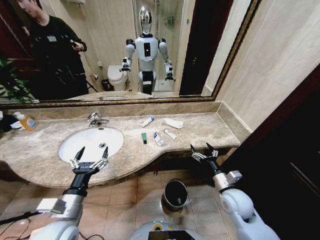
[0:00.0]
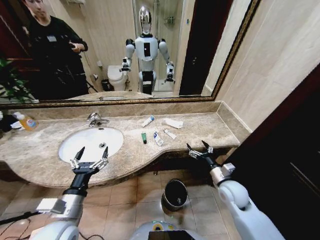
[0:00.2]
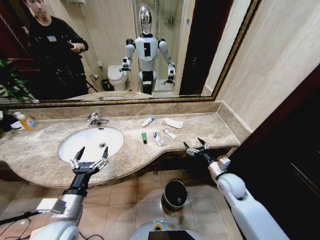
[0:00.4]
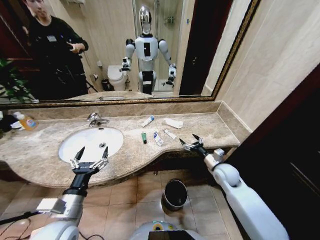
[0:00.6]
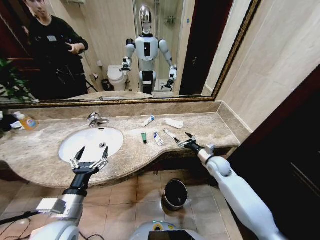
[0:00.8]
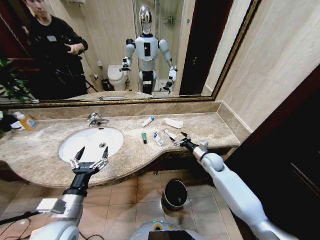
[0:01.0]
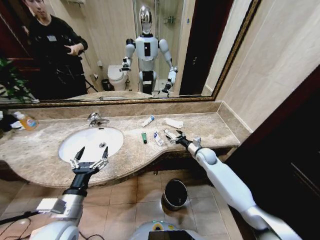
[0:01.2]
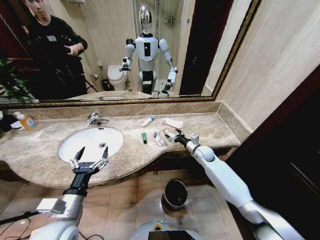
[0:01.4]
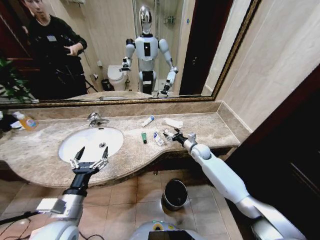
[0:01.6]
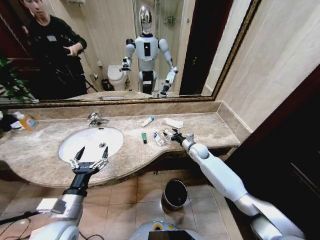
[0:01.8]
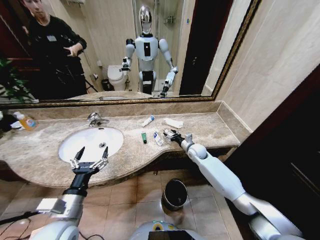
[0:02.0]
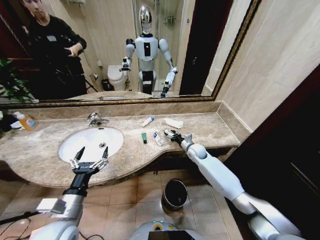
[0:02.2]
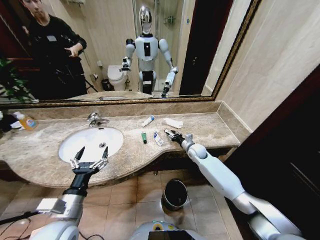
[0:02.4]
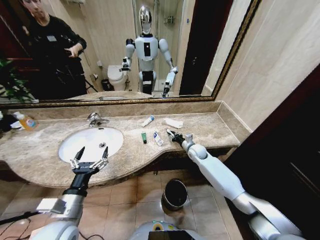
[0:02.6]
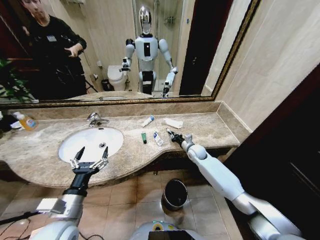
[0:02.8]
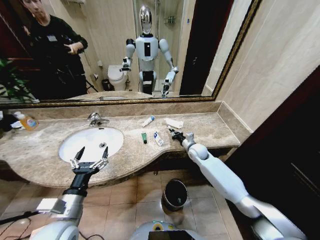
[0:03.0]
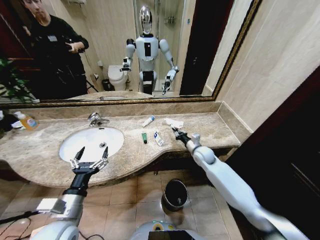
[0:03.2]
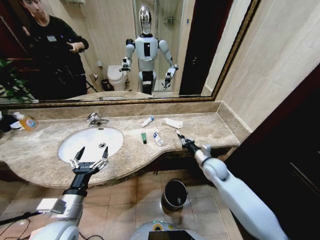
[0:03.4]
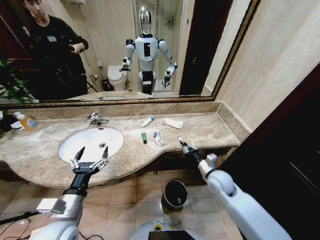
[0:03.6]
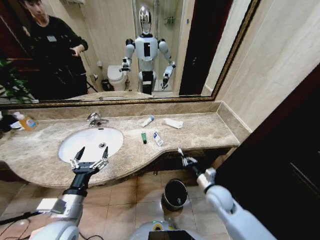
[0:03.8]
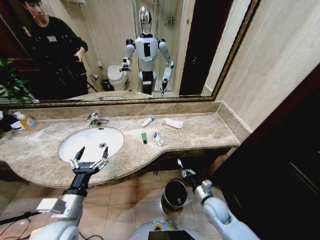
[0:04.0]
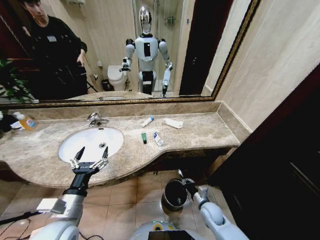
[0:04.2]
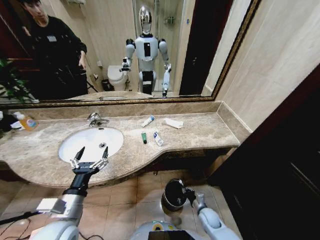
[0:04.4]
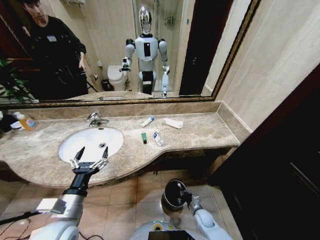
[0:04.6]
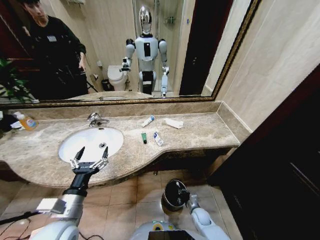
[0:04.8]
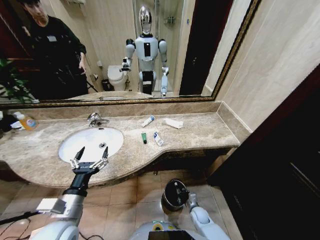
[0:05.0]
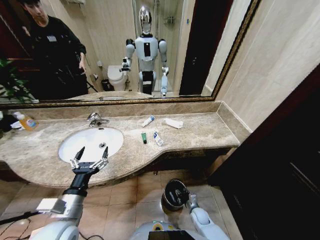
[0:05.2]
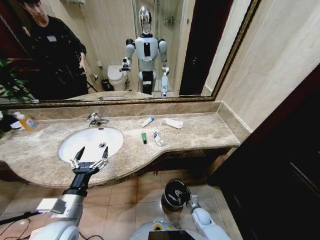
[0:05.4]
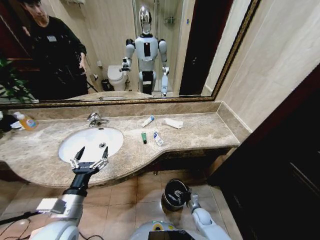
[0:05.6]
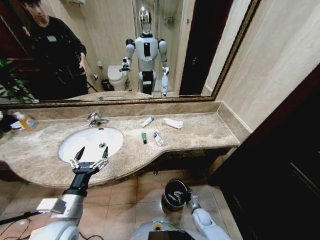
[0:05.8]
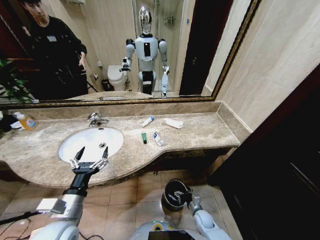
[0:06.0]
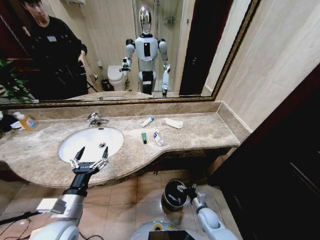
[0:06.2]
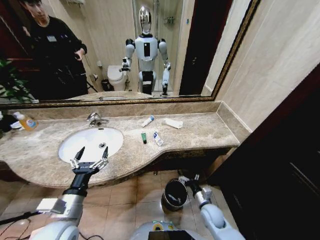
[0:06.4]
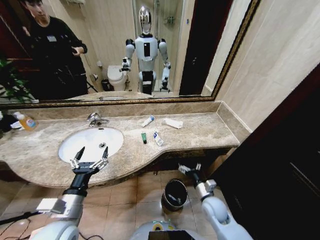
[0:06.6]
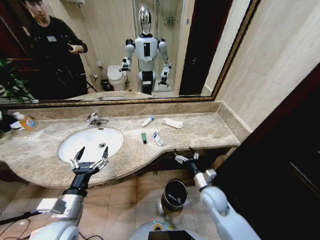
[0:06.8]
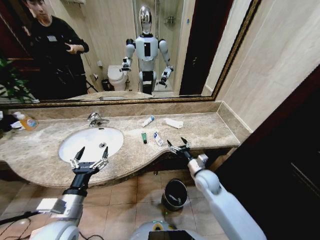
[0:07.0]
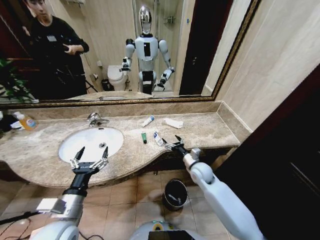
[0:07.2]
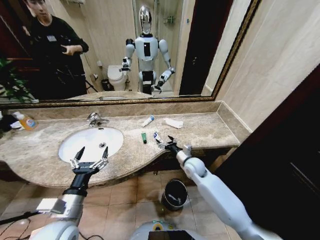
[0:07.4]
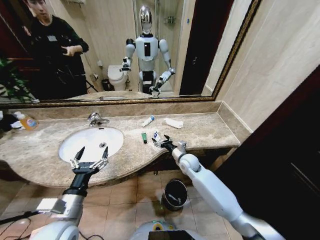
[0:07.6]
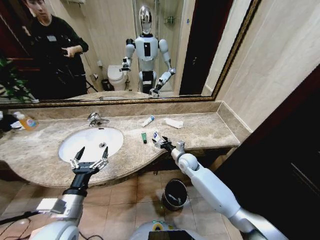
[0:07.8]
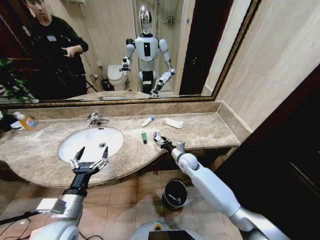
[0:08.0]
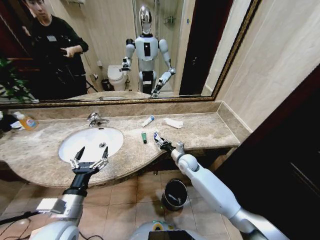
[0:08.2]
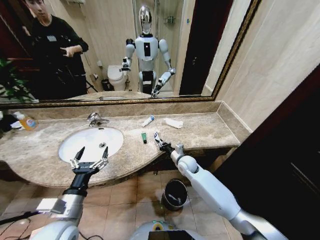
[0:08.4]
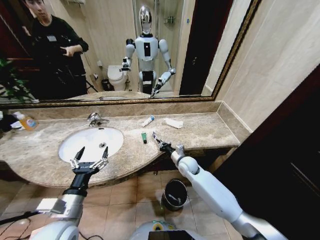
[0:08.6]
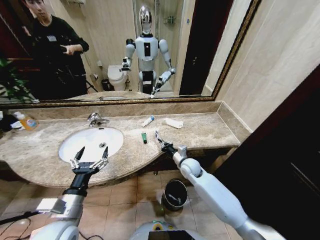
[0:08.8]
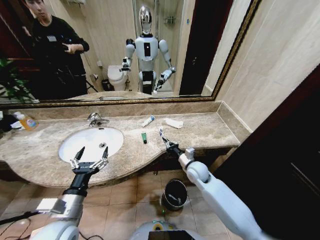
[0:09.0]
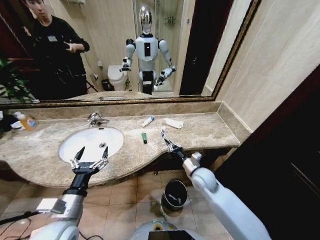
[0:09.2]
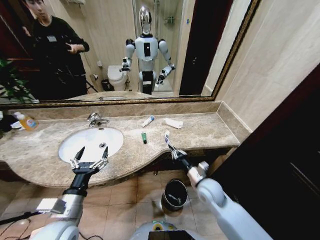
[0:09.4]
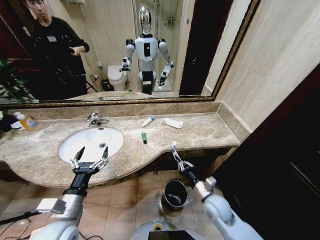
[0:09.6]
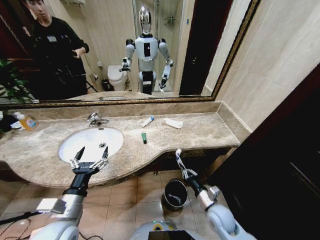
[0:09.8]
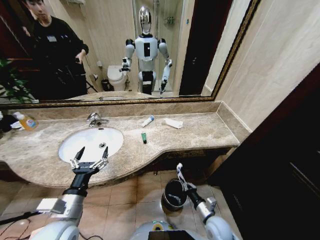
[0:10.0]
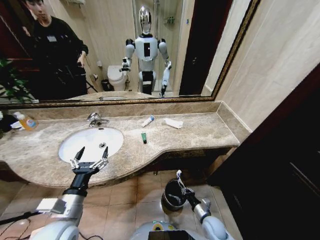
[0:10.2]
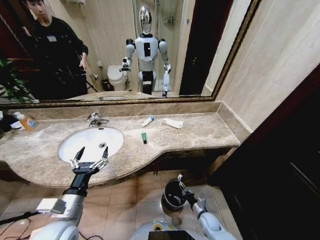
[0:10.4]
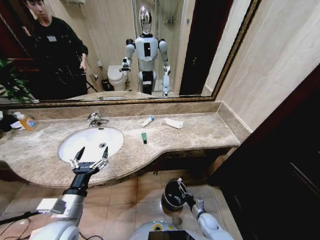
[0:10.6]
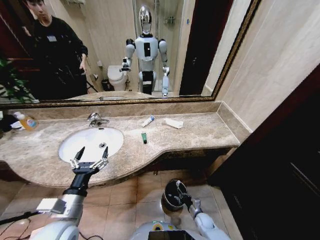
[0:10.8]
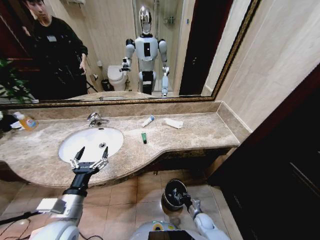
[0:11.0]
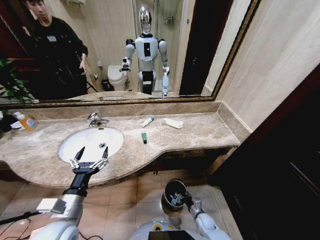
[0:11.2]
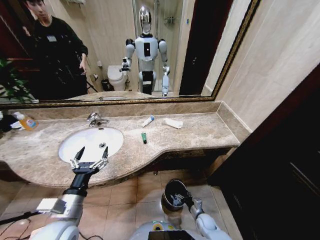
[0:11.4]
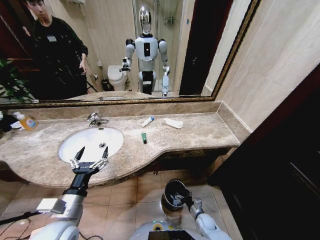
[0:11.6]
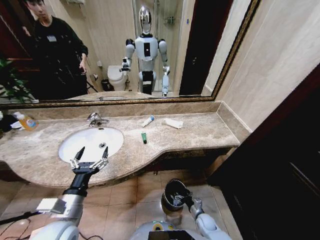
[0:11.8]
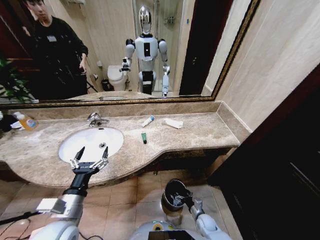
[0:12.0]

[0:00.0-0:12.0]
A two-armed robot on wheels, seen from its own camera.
Task of the whole recording: Pick up the trash from the sink and place it in the trash bin.
0:01.6 to 0:03.0: The right gripper closes.
0:03.0 to 0:04.4: The right gripper is displaced backward and downward by about 35 cm.
0:04.4 to 0:06.0: The right gripper opens its fingers.
0:06.0 to 0:07.6: The right gripper is displaced upward and forward by approximately 30 cm.
0:07.6 to 0:09.0: The right gripper shifts by approximately 5 cm, and closes up.
0:09.0 to 0:10.4: The right gripper goes approximately 30 cm downward and backward.
0:10.4 to 0:12.0: The right gripper opens.

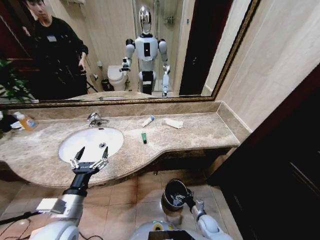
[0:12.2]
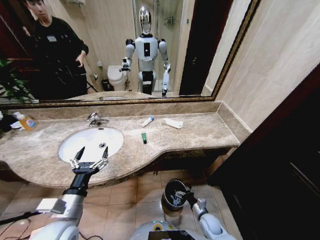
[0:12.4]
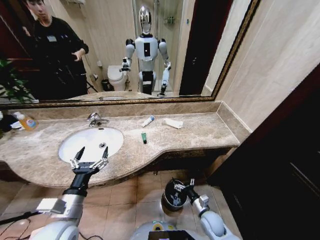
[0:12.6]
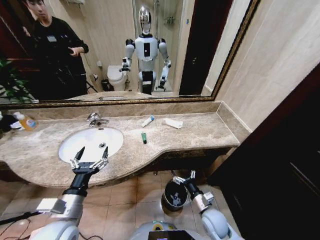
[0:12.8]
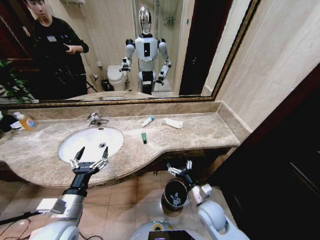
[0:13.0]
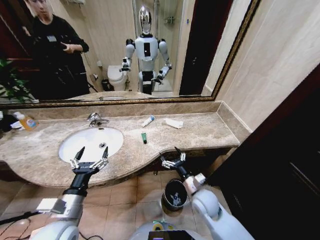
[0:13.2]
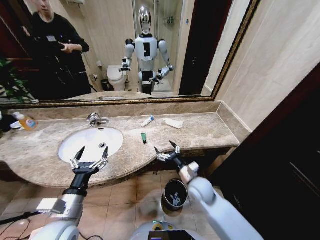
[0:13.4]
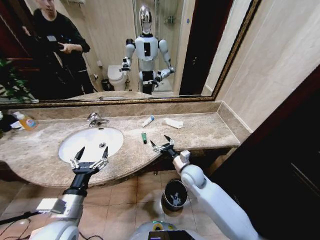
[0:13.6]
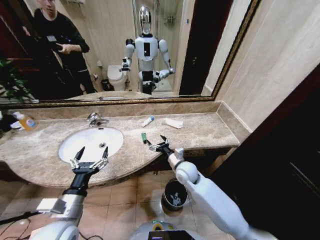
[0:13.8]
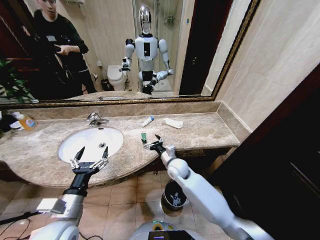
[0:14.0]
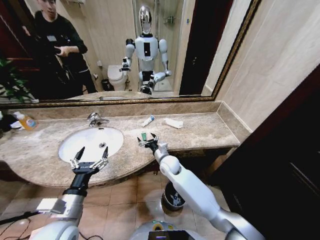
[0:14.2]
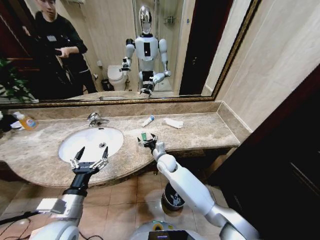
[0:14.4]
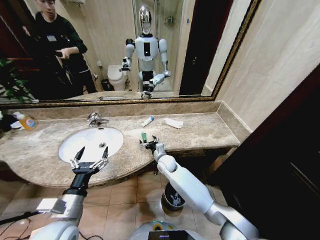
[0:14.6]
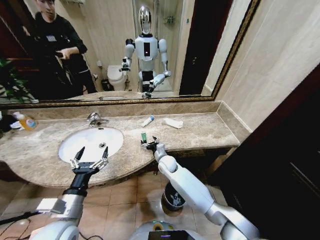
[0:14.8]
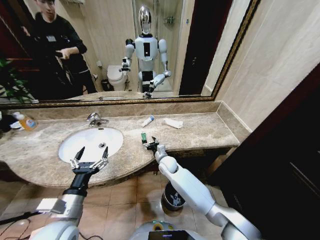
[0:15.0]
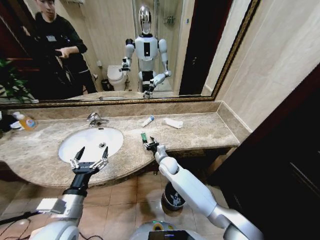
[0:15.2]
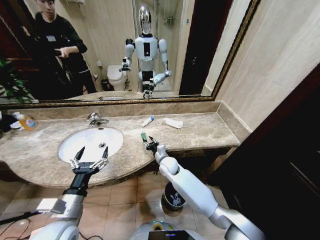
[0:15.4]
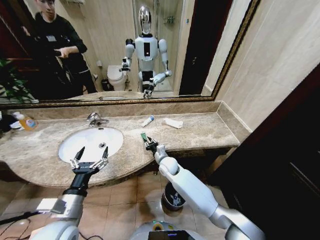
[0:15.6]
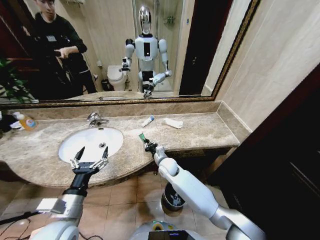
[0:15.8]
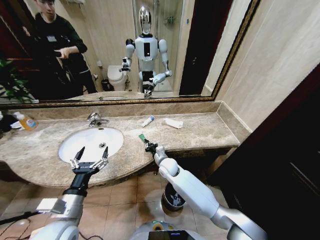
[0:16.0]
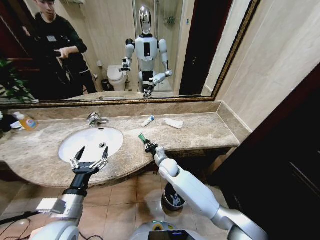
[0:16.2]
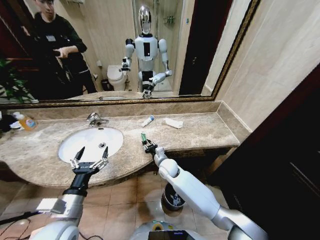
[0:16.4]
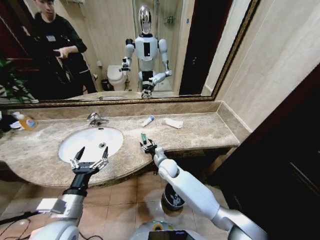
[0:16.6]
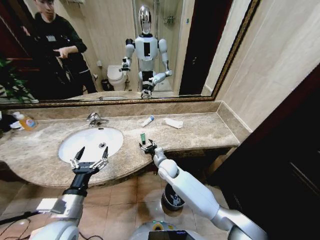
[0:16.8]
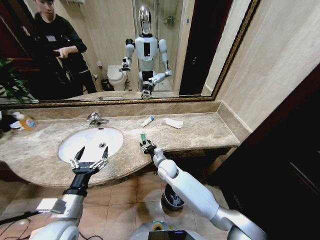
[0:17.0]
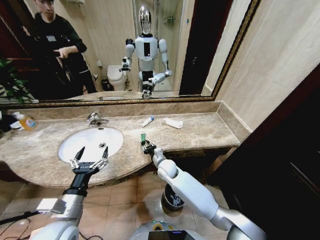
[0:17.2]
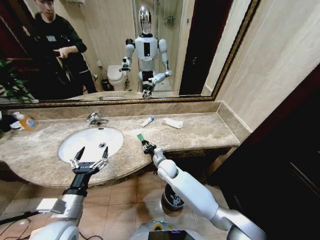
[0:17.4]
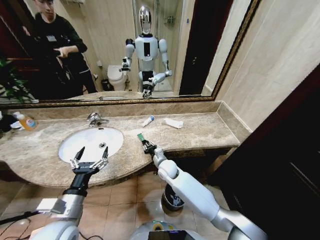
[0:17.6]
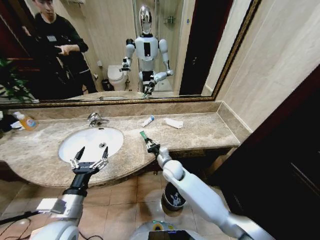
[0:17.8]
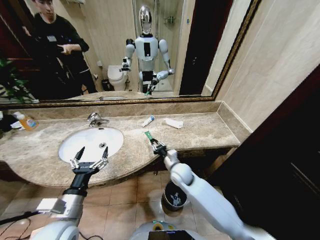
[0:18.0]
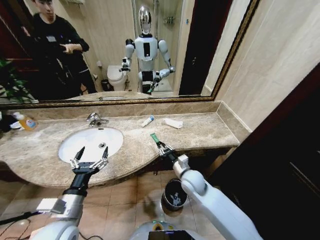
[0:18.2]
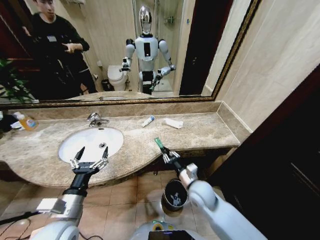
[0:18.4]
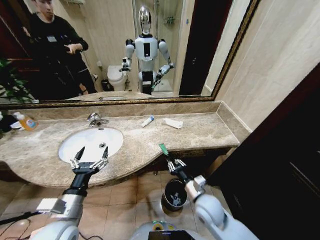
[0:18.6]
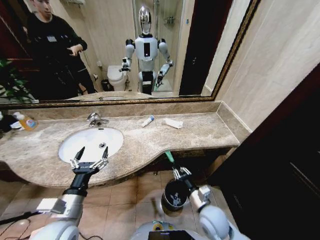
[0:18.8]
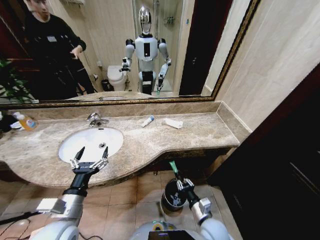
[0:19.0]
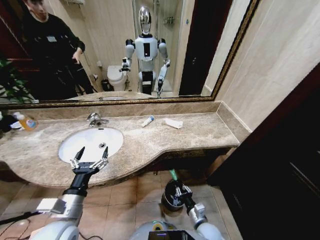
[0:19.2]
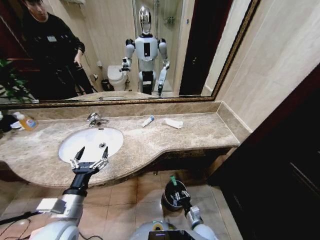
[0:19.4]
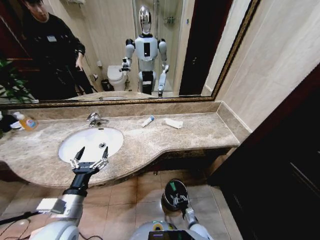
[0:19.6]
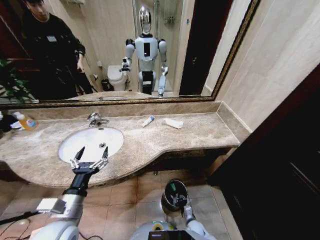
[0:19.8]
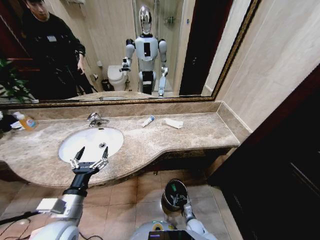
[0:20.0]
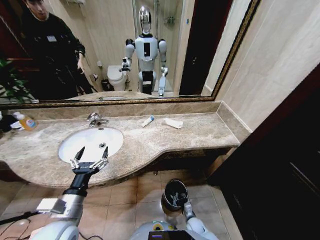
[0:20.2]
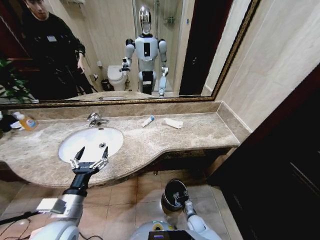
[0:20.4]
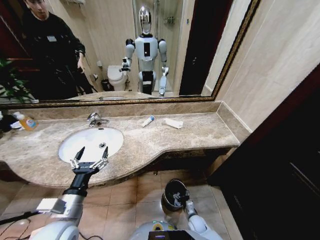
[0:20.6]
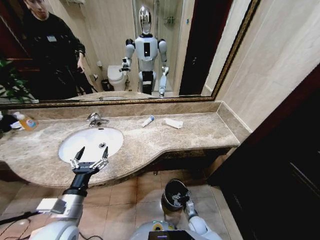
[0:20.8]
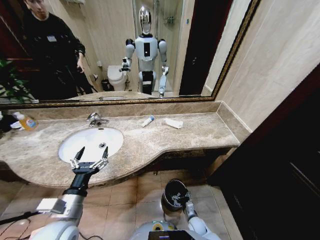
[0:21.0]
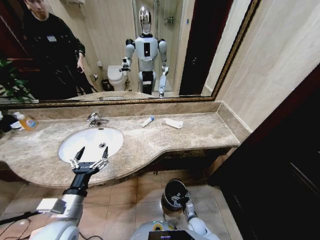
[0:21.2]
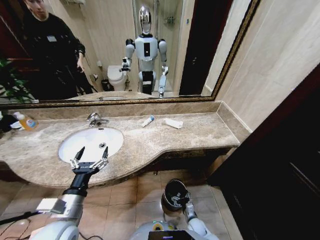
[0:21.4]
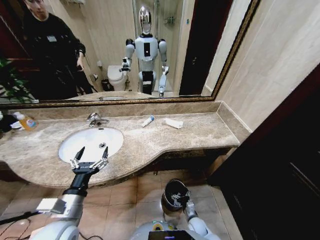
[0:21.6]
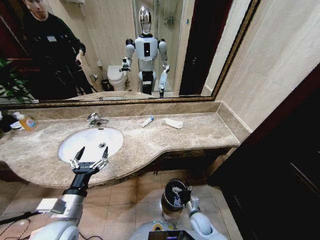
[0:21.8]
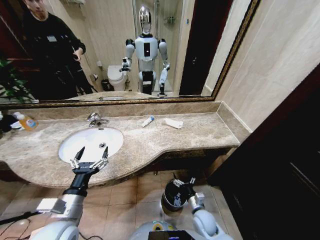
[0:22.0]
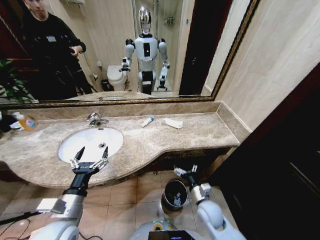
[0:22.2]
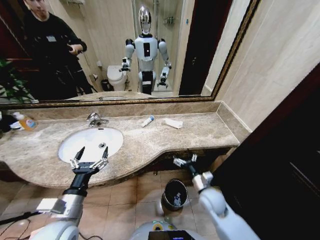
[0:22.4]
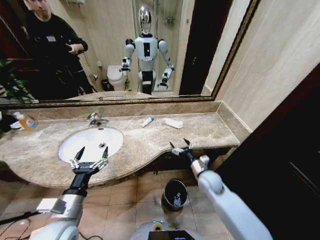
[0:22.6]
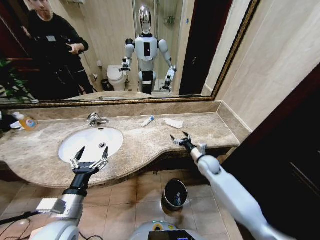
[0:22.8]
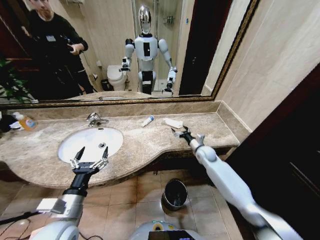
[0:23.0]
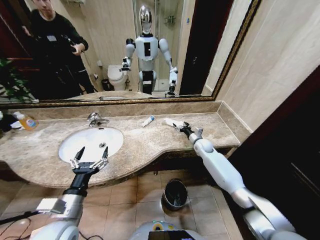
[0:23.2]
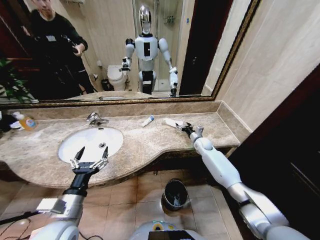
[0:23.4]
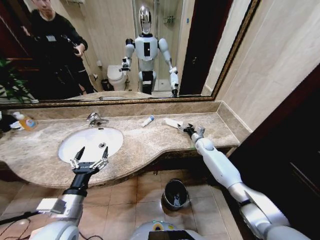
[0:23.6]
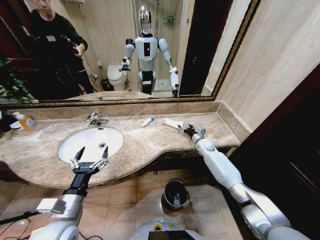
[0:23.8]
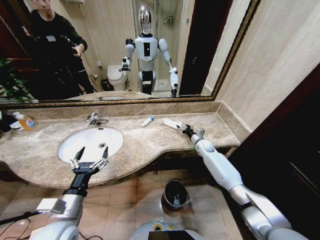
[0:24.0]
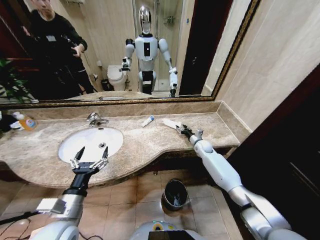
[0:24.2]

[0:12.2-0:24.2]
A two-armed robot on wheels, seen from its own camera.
Task of the whole recording: Pick up the trash from the sink and place it in the trash bin.
0:12.2 to 0:13.8: The right gripper shifts about 35 cm upward, forward and to the left.
0:13.8 to 0:15.2: The right gripper shifts approximately 10 cm to the left, forward and downward, and closes.
0:15.2 to 0:16.6: The right gripper closes, then reopens.
0:16.6 to 0:18.2: The right gripper travels to the right and backward by some 15 cm, and closes its fingers.
0:18.2 to 0:19.8: The right gripper is displaced downward and backward by about 35 cm.
0:19.8 to 0:21.2: The right gripper opens.
0:21.2 to 0:22.6: The right gripper shifts approximately 30 cm upward and forward.
0:22.6 to 0:24.2: The right gripper is displaced forward by some 20 cm.
